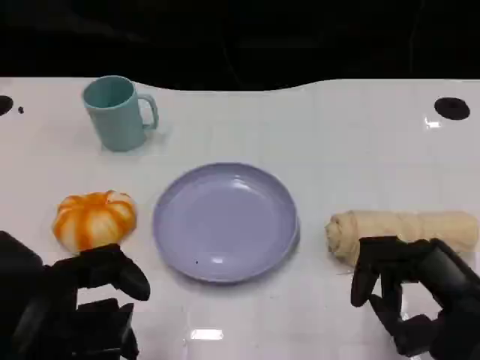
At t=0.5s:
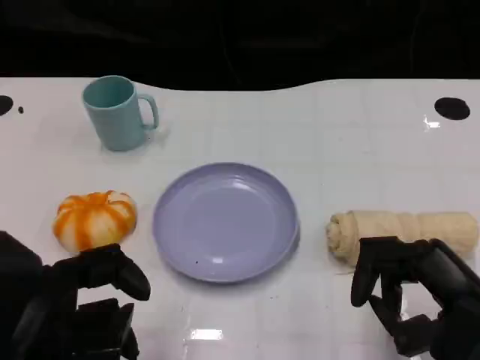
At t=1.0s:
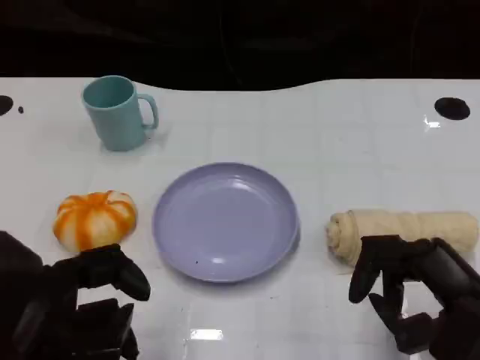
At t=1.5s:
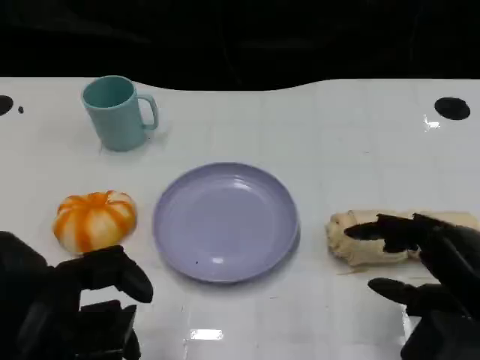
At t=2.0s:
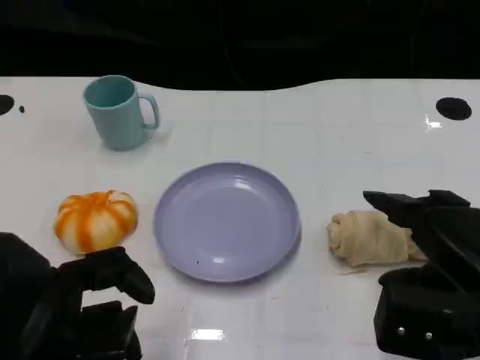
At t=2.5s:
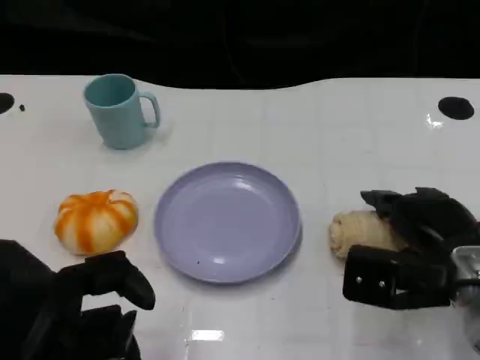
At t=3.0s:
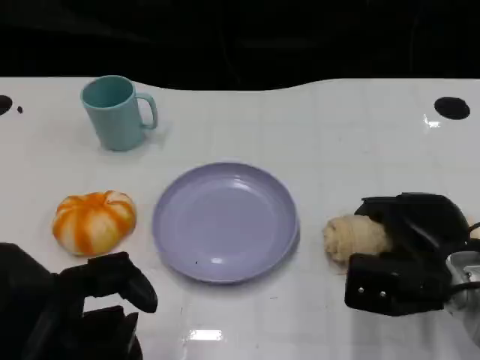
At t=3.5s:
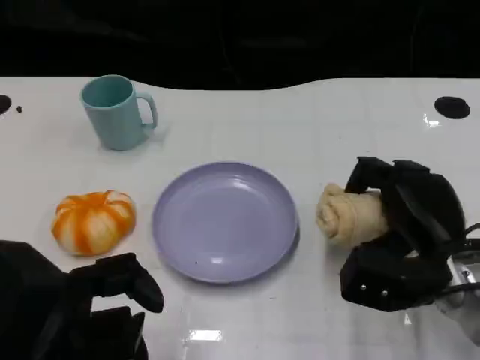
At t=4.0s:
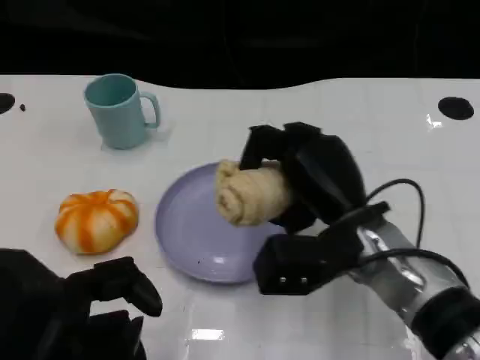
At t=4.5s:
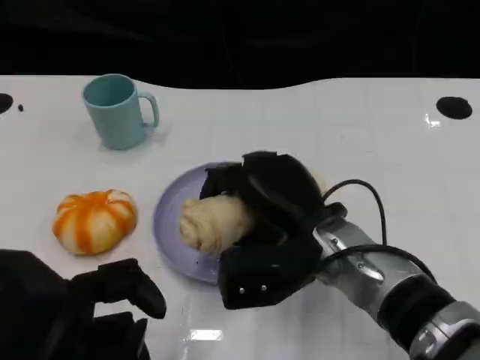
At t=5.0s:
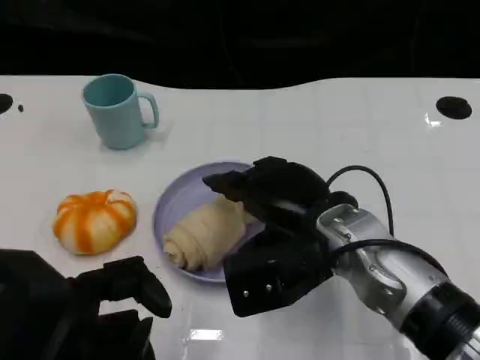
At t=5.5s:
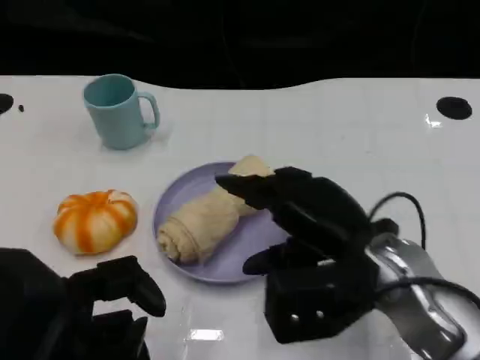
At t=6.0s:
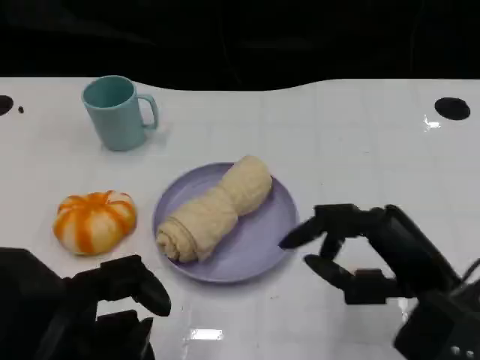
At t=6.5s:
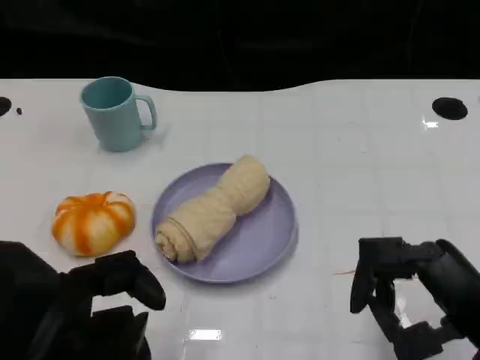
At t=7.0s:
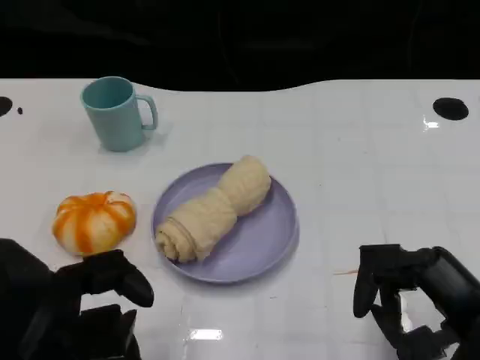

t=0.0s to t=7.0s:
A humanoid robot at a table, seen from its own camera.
Task of the whole recording: Grasp the towel on the left side of the plate with the left hand and place it into the plate.
t=2.0s to t=3.5s: The right hand is displaced forward and downward by roughly 10 cm.
t=3.5s to t=5.0s: The right hand is displaced to the left and upward by about 10 cm.
t=5.0s to t=7.0s: The right hand shifts approximately 20 cm to the right and backward.

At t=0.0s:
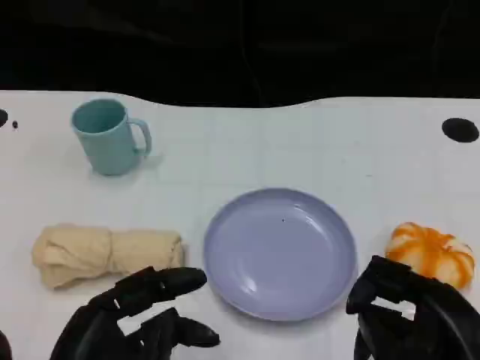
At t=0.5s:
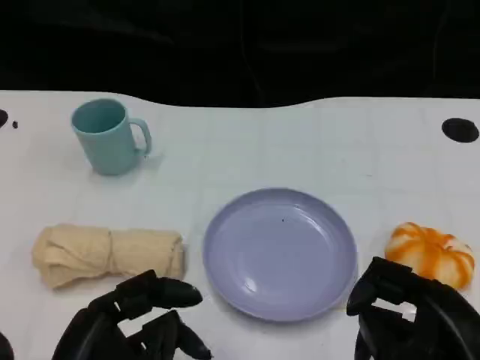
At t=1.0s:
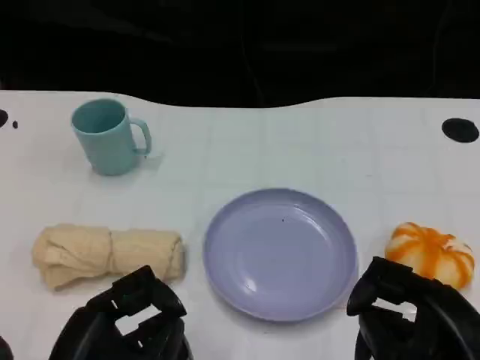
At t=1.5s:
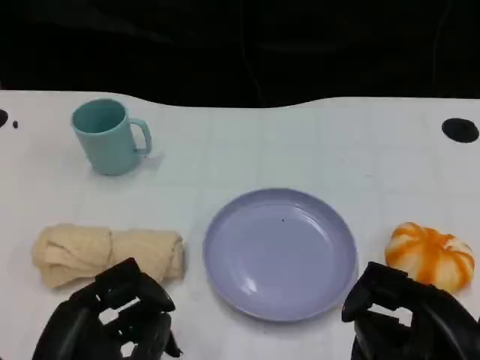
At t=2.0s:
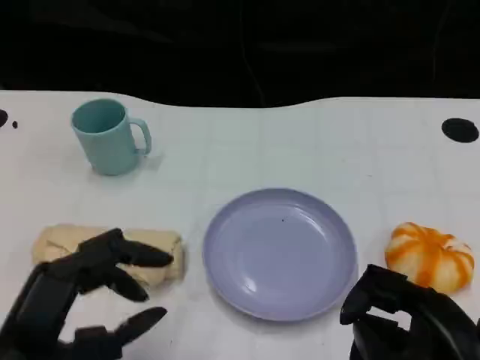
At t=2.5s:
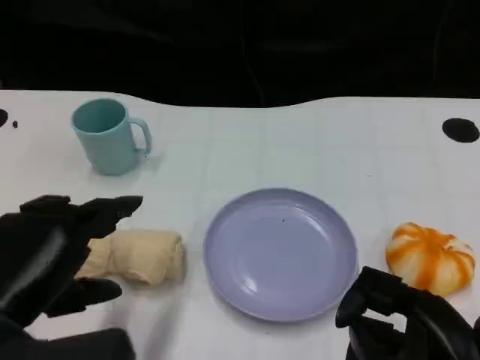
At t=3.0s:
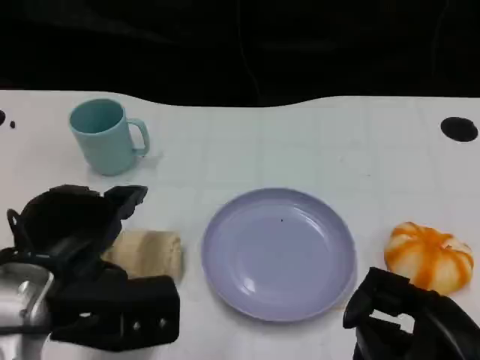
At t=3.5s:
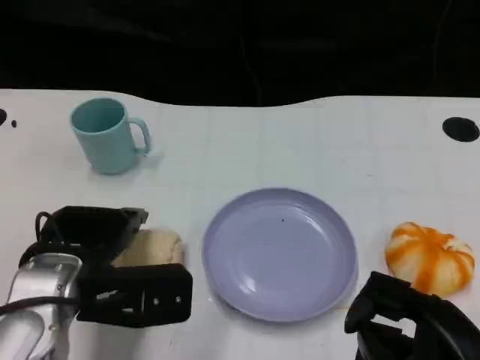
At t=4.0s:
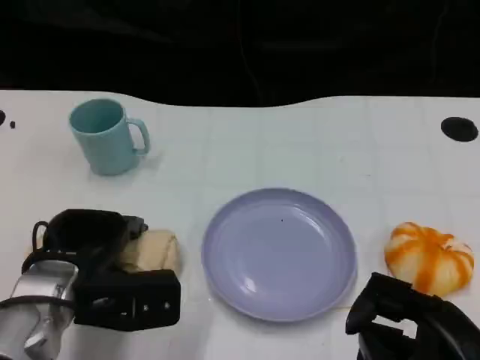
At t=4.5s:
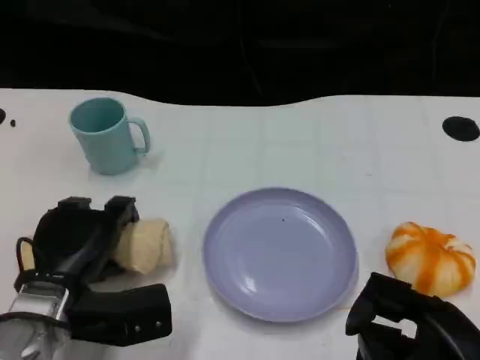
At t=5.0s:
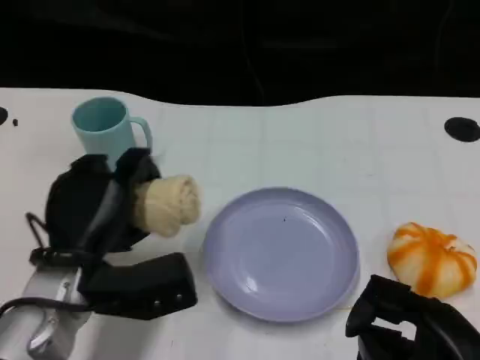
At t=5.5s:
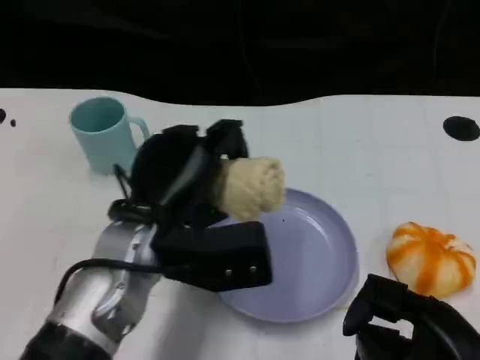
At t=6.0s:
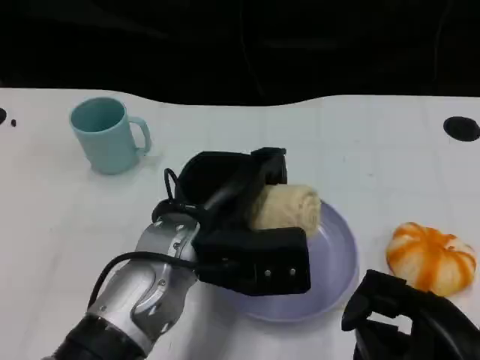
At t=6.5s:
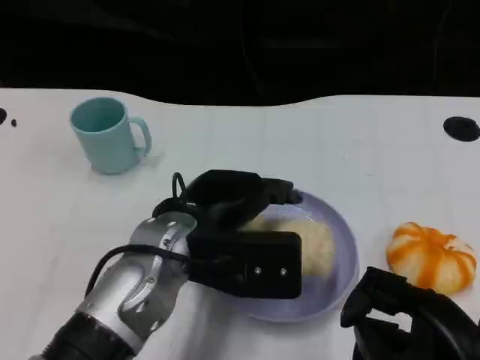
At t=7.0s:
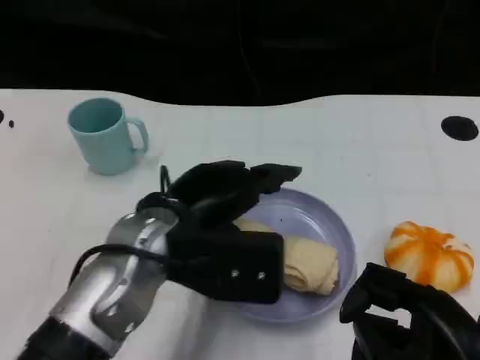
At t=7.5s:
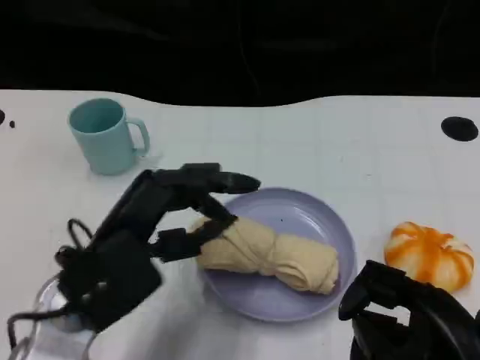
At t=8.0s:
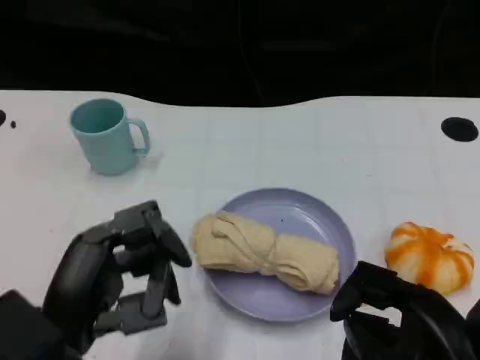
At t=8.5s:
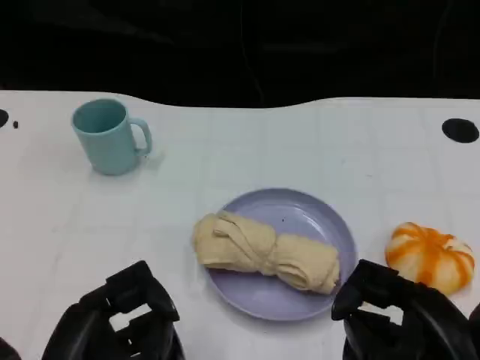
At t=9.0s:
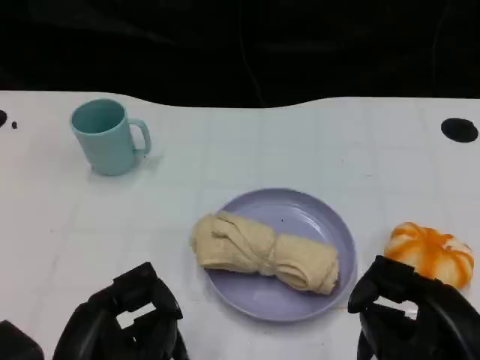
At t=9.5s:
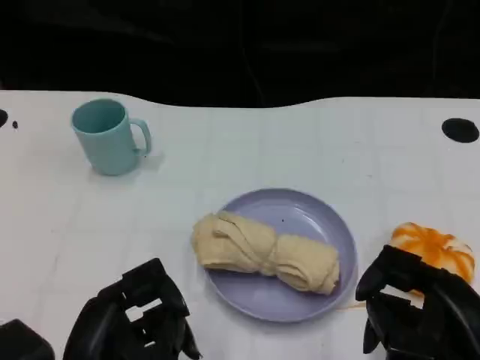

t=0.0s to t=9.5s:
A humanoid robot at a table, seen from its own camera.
Task of the whole recording: Grasp the towel on the left side of the plate with the left hand and place it into the plate.
t=2.0s to t=4.0s: The left hand heads forward and downward, covering some 15 cm.
t=4.0s to t=5.5s: The left hand is displaced to the right and upward by roughly 10 cm.
t=5.5s to t=7.5s: The left hand moves to the left and backward, some 10 cm.
t=7.5s to t=9.5s: The left hand travels backward by some 10 cm.

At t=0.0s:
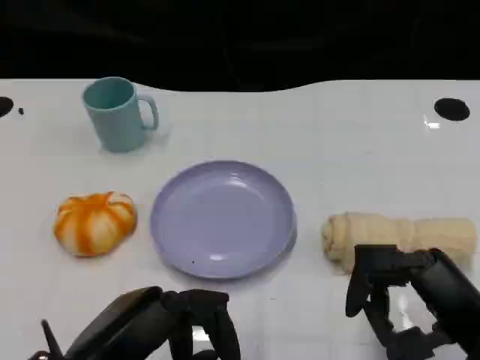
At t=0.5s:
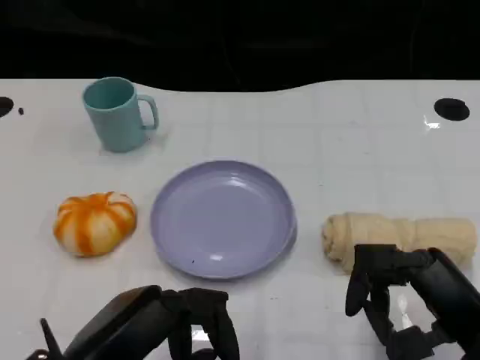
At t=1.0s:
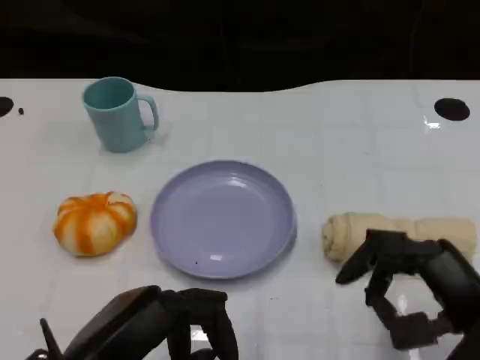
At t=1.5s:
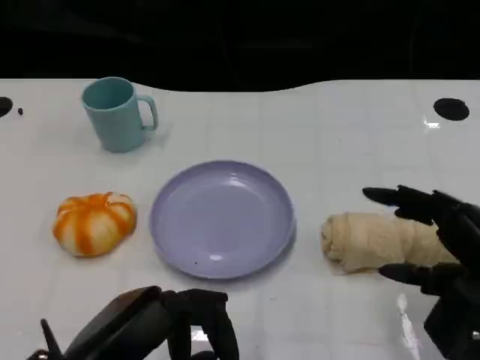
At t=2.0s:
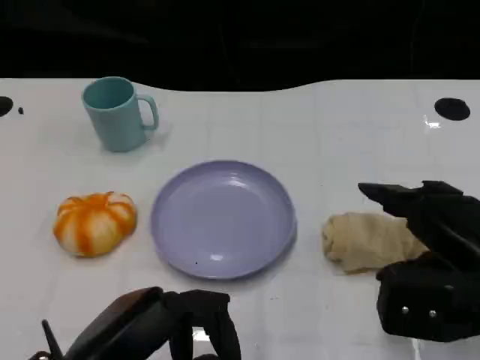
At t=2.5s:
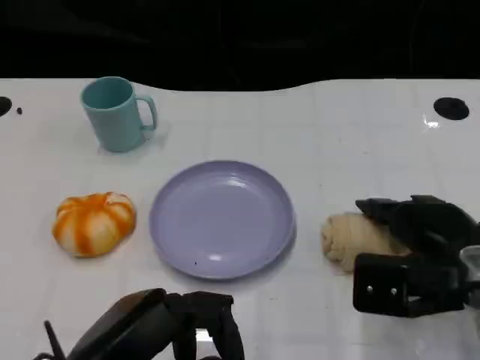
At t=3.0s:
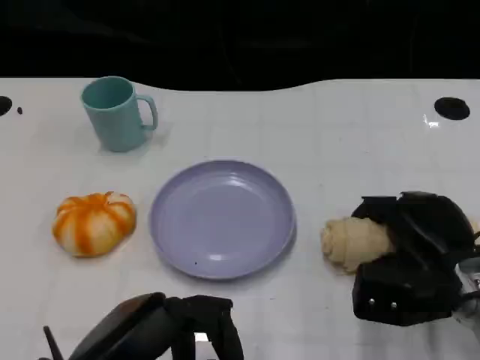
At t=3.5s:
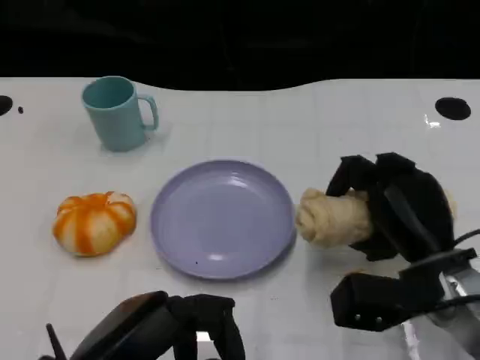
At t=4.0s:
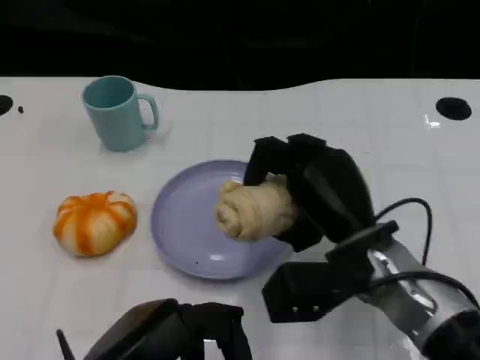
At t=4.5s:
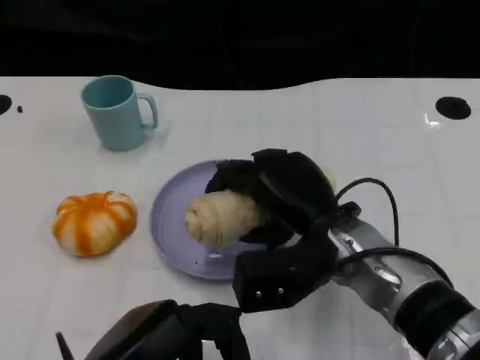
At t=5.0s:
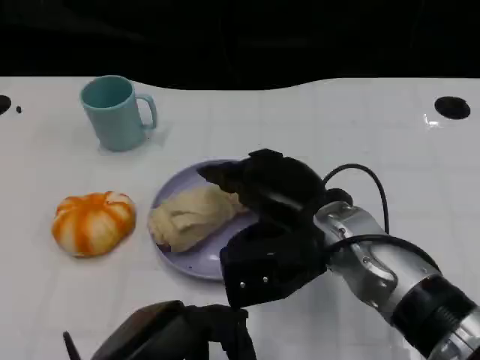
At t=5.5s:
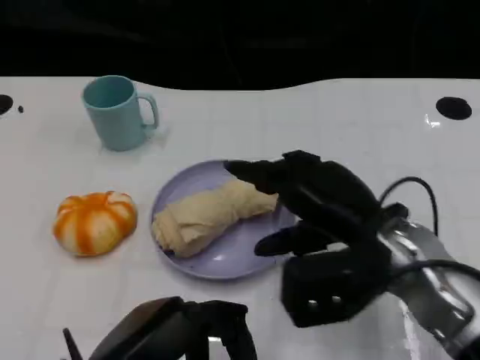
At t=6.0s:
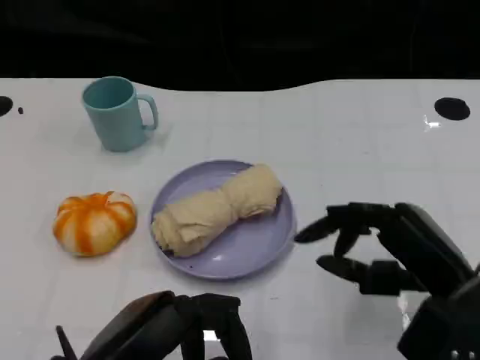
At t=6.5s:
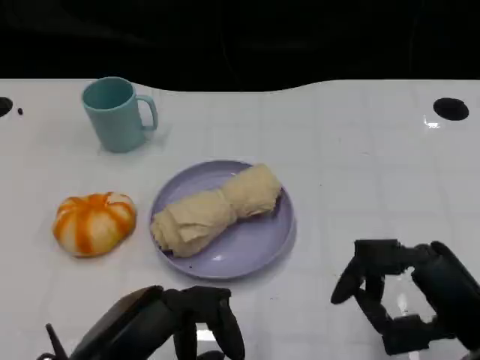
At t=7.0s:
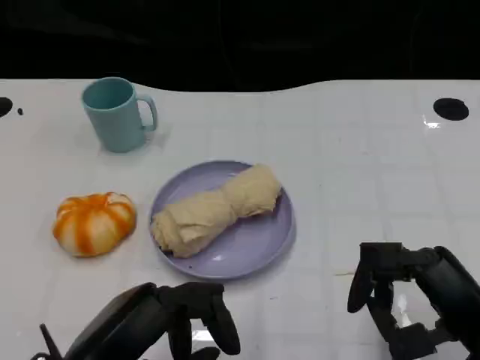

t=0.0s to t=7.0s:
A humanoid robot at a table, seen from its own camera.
Task of the whole recording: Grasp the towel on the left side of the plate with the left hand and place it into the plate.
t=0.0s to t=2.0s: The right hand is displaced forward by about 5 cm.
t=2.0s to t=3.5s: The right hand travels downward by approximately 5 cm.
t=3.5s to t=5.0s: The right hand heads to the left and upward, covering approximately 10 cm.
t=5.0s to t=7.0s: The right hand heads to the right and backward, covering some 20 cm.

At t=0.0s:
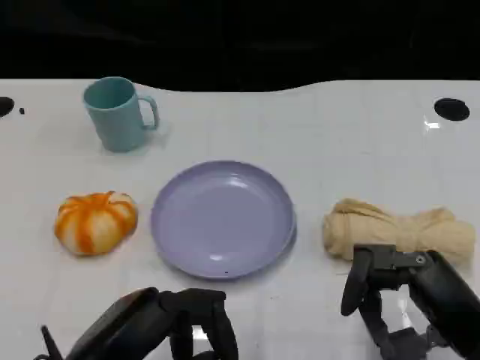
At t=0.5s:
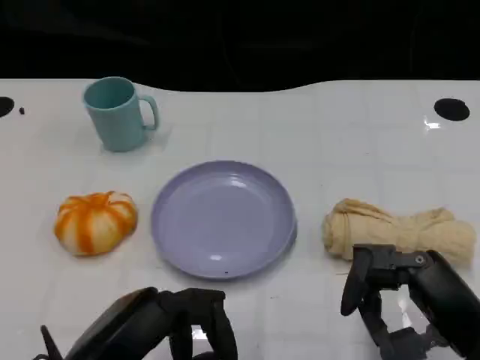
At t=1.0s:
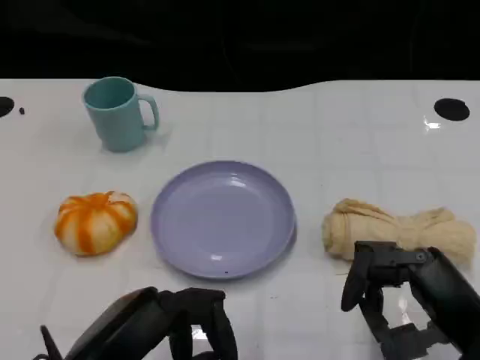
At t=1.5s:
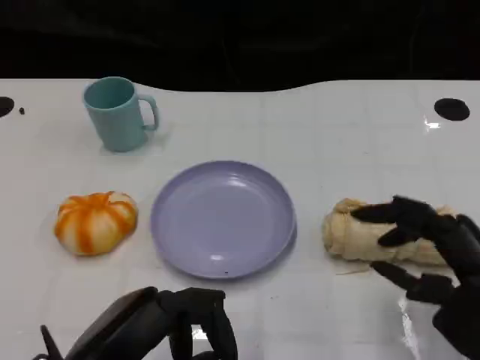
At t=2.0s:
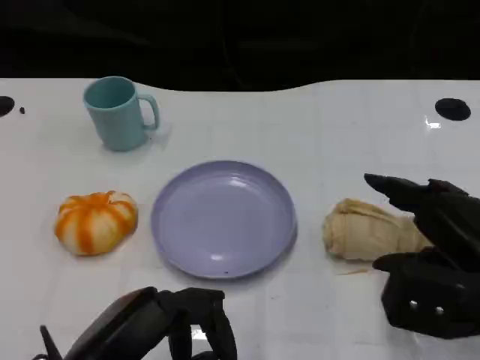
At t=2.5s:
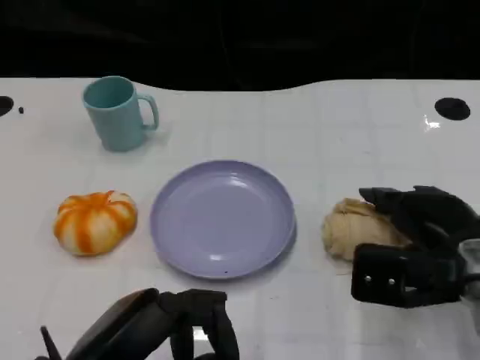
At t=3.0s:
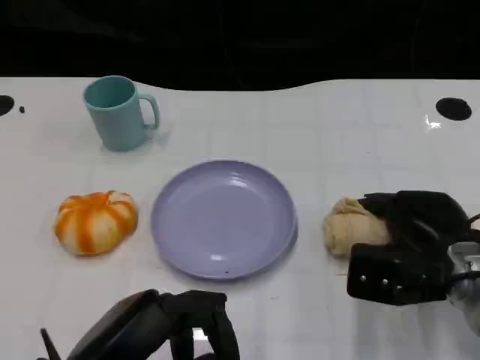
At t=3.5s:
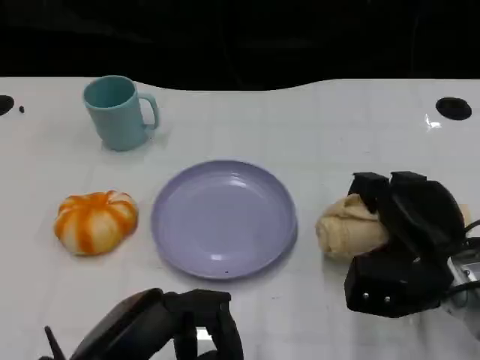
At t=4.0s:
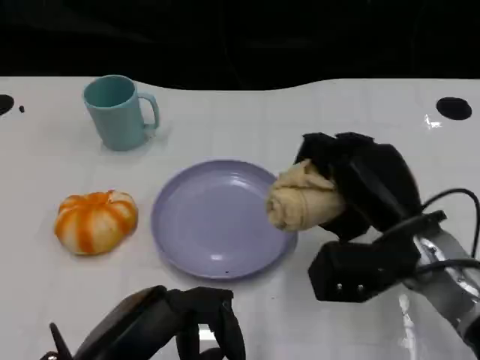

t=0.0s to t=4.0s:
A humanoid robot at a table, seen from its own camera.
Task of the whole recording: Grasp the towel on the left side of the plate with the left hand and place it into the plate.
t=0.0s to t=2.0s: The right hand moves forward, roughly 5 cm.
t=2.0s to t=4.0s: The right hand is displaced to the left and forward by roughly 10 cm.
